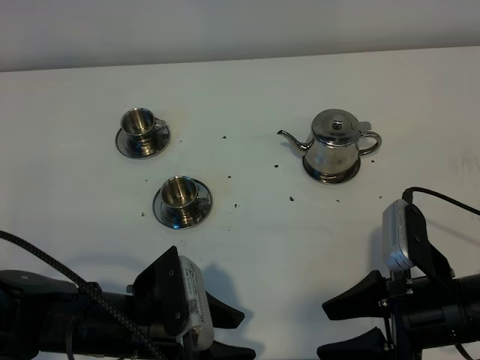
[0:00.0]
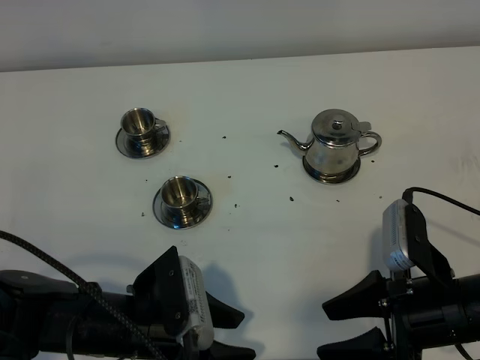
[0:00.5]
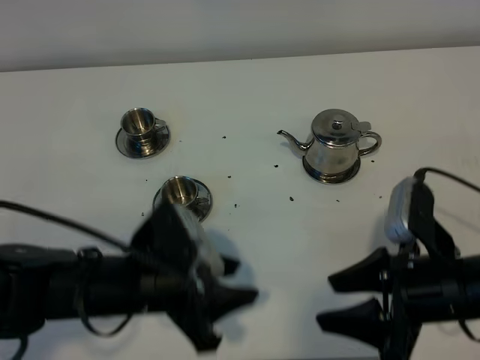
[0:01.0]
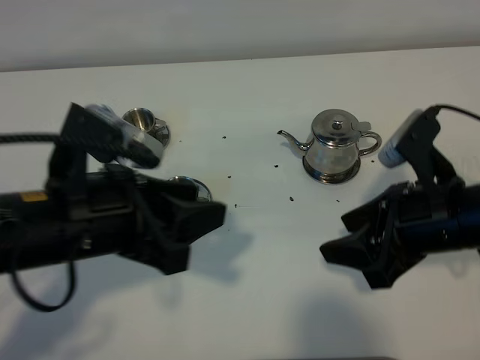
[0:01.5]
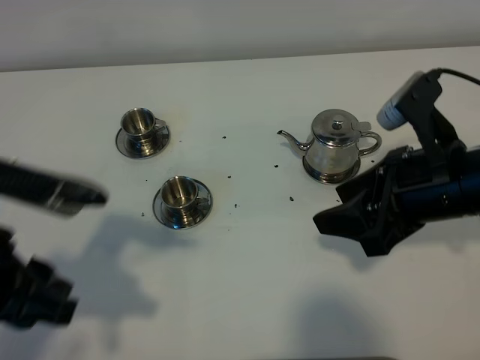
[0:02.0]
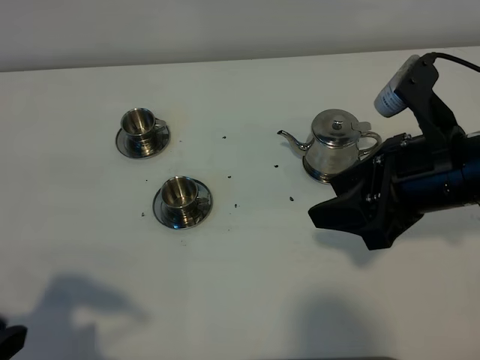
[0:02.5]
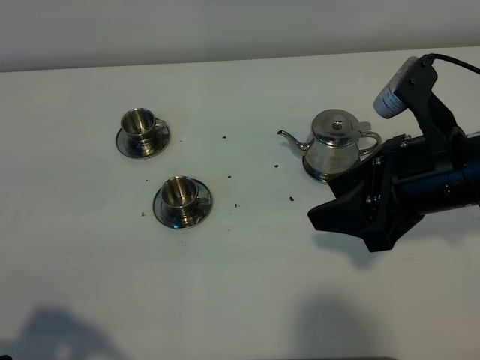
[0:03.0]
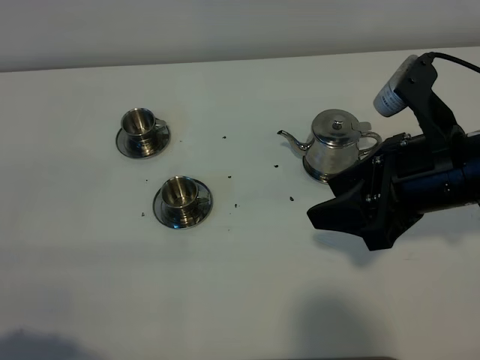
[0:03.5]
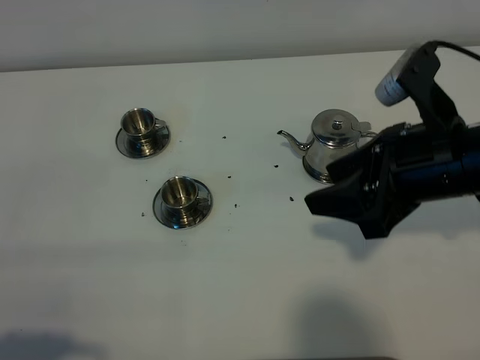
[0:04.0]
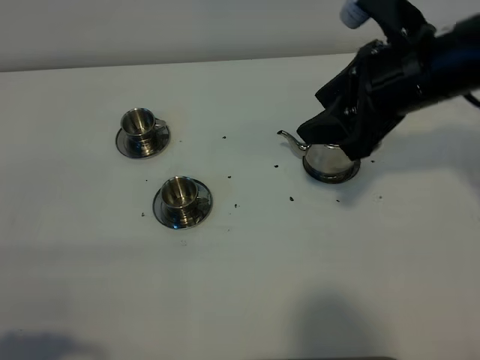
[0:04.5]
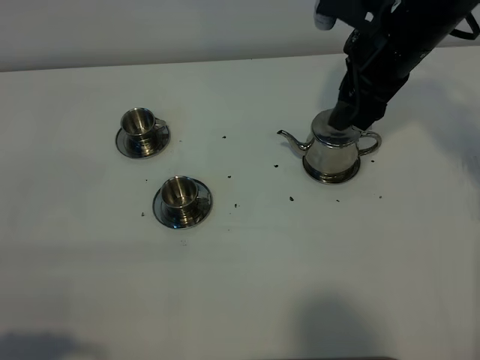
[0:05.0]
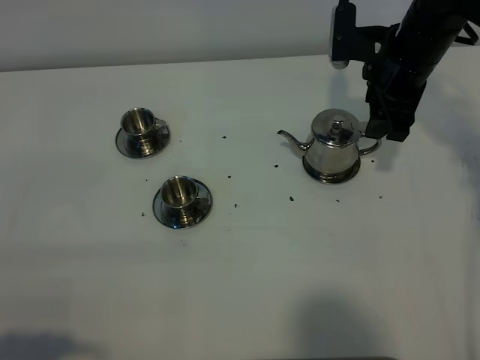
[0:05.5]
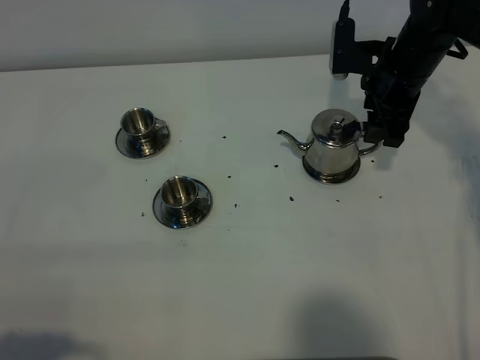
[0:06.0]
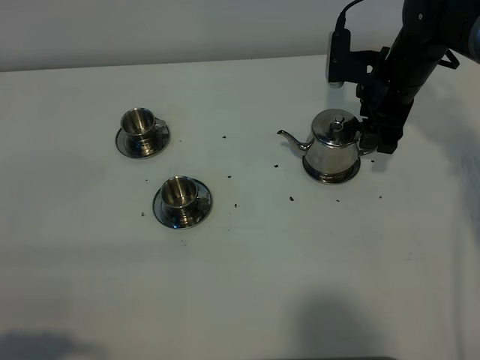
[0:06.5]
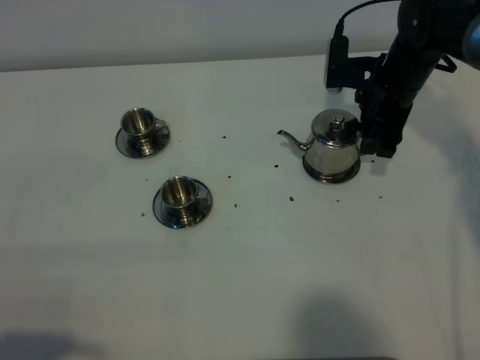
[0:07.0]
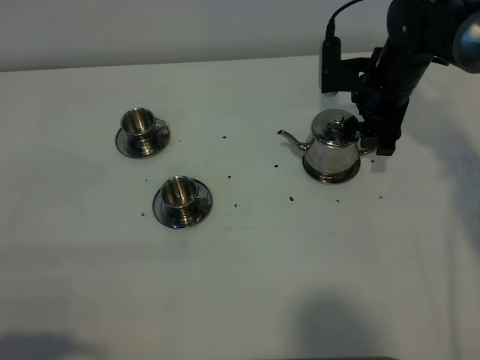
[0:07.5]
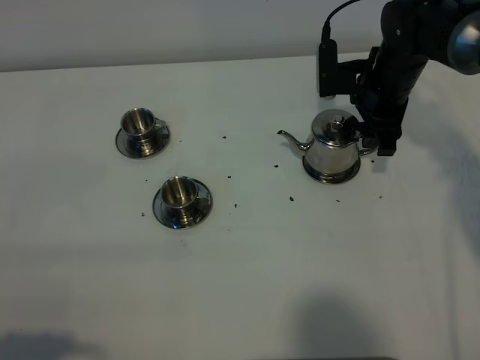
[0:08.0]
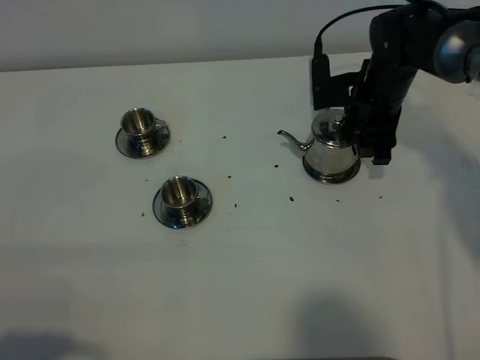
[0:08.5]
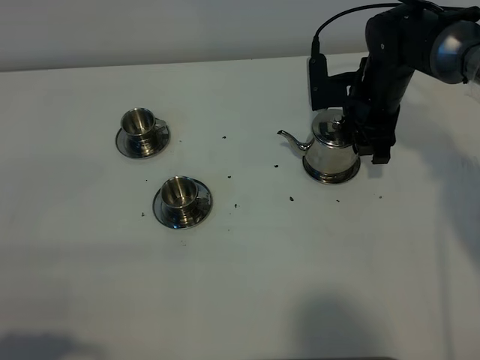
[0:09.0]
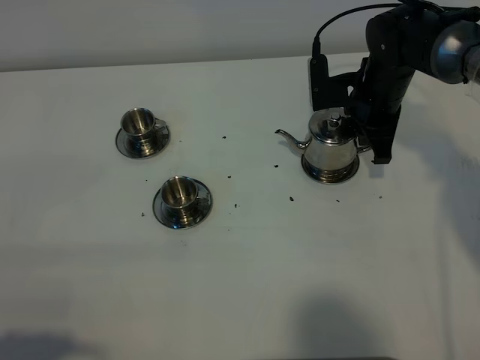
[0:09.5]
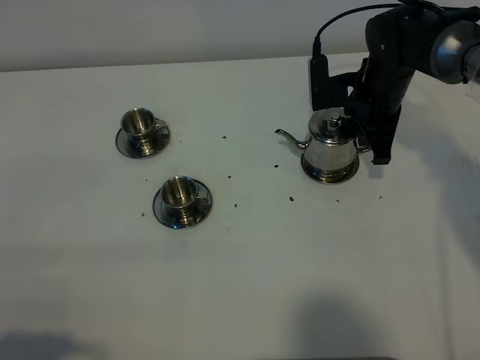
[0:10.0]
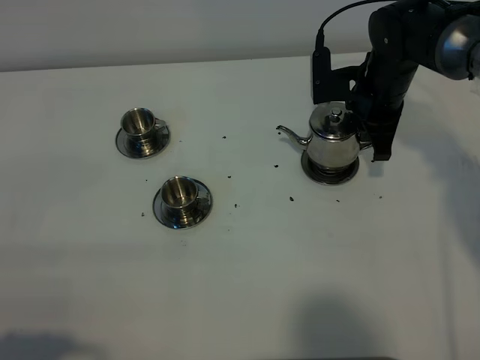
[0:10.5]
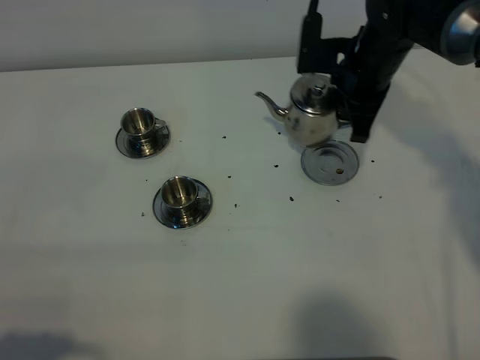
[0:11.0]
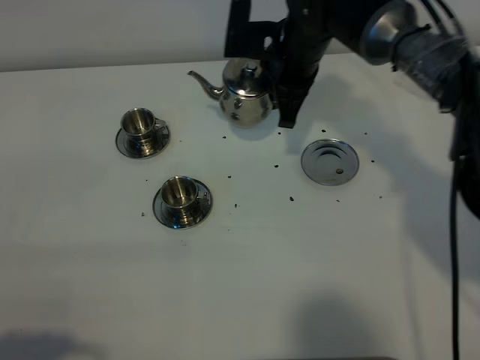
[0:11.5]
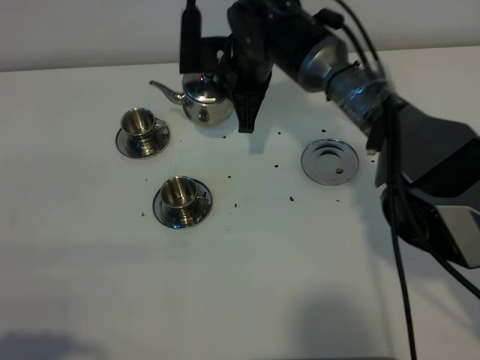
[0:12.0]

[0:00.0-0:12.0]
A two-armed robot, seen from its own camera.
Task of the whole recording: grasp the stainless steel teapot and pour the tea into the two stainless steel teacups one by one, put the stainless steel teapot back in its original place.
Step, 0:00.0 to 0:10.5: Pick up the teapot with the right gripper.
0:00.0 to 0:02.0: The right gripper travels upward and forward by some 15 cm. The left gripper moves upward and to the left, roughly 20 cm.
0:02.0 to 0:04.0: The left gripper is displaced backward and to the left by roughly 15 cm.
0:04.0 to 0:06.0: The right gripper moves forward, approximately 20 cm.
0:06.0 to 0:08.0: The grippers move only a little.
0:08.0 to 0:10.0: The right gripper closes.
0:10.0 to 0:12.0: The right gripper heads to the left, covering some 15 cm.

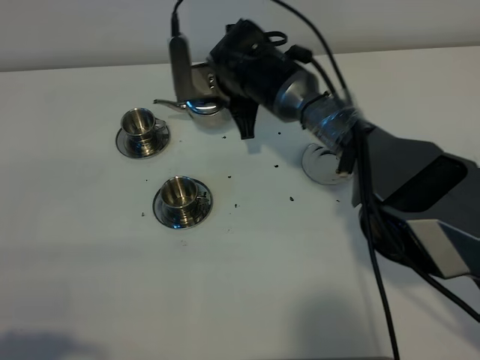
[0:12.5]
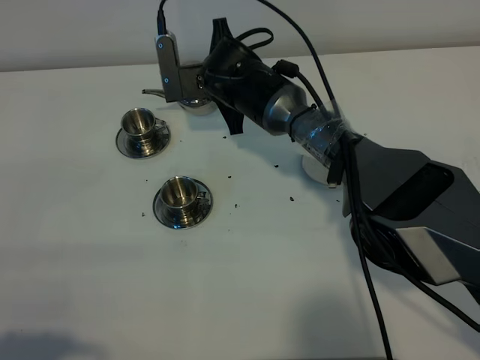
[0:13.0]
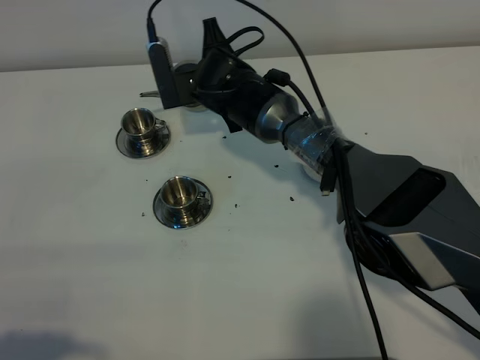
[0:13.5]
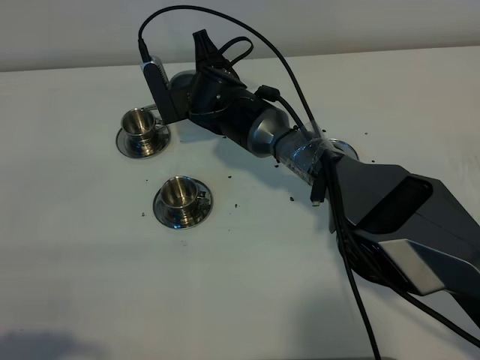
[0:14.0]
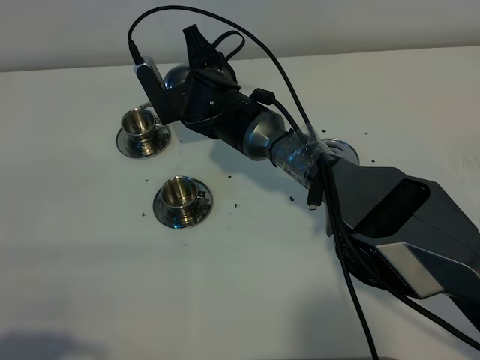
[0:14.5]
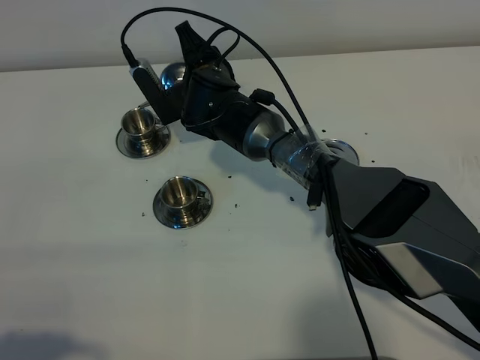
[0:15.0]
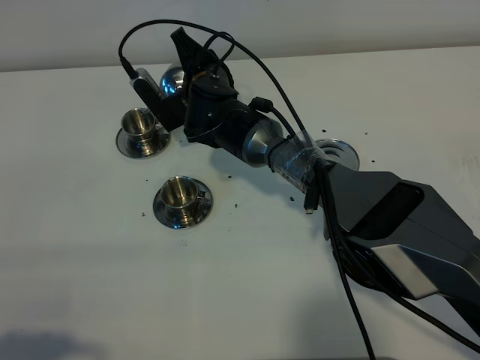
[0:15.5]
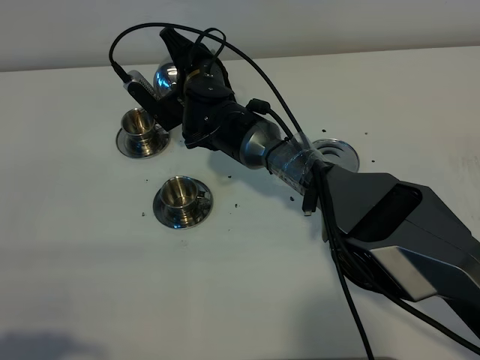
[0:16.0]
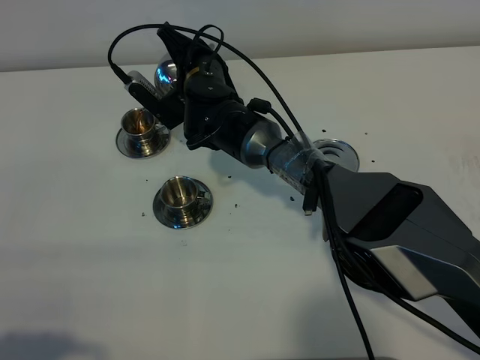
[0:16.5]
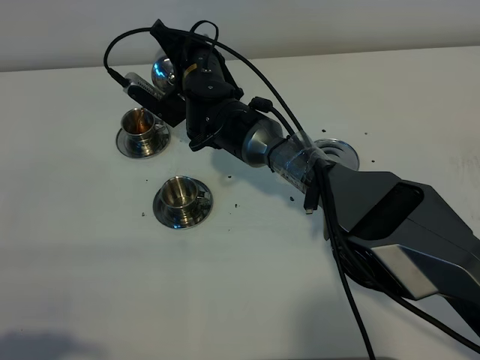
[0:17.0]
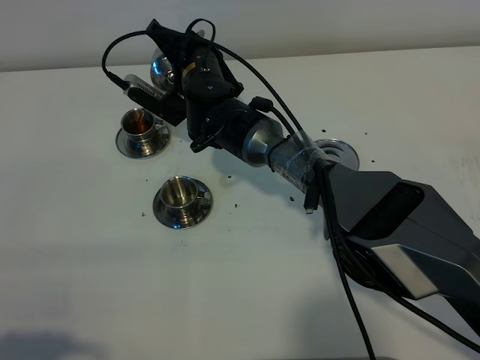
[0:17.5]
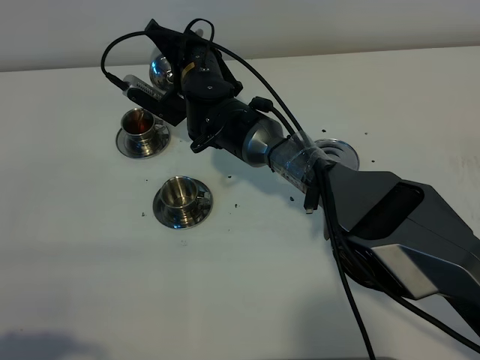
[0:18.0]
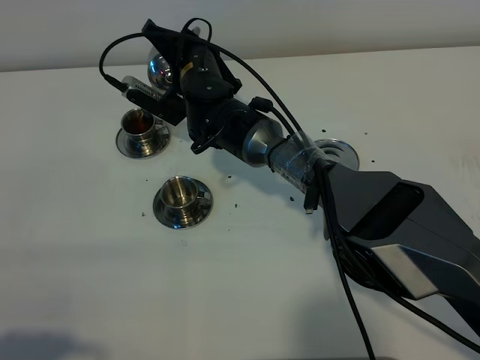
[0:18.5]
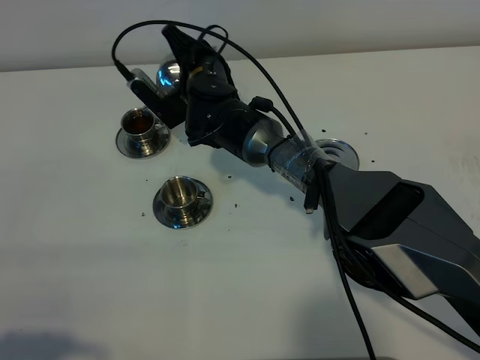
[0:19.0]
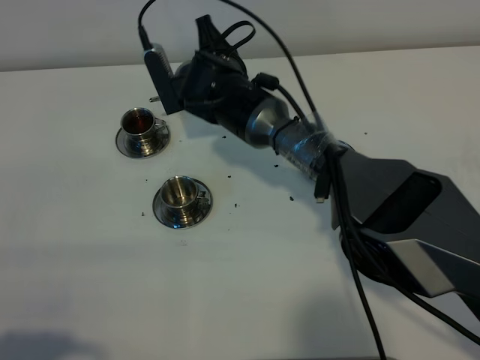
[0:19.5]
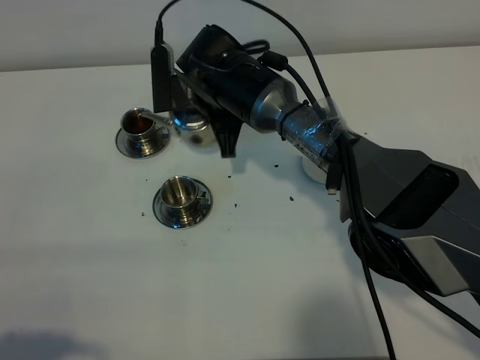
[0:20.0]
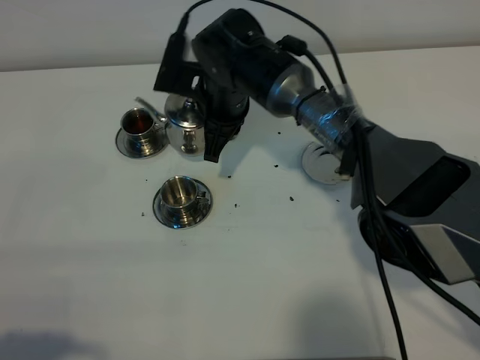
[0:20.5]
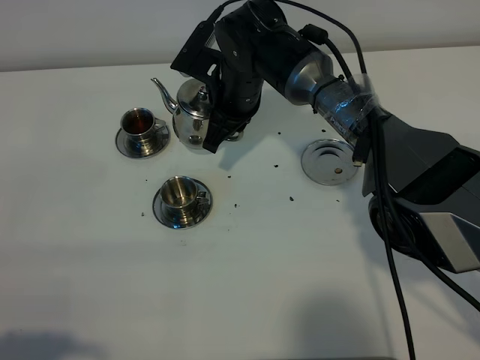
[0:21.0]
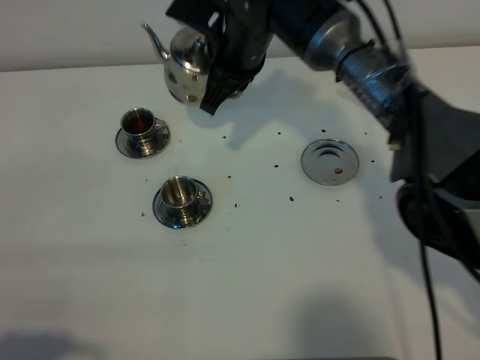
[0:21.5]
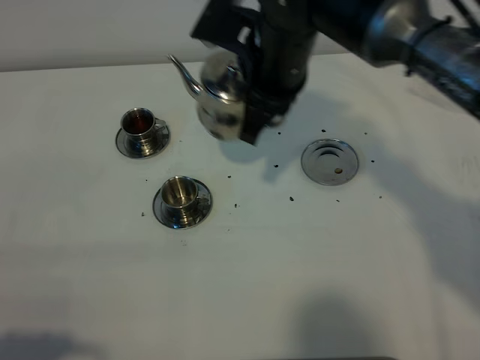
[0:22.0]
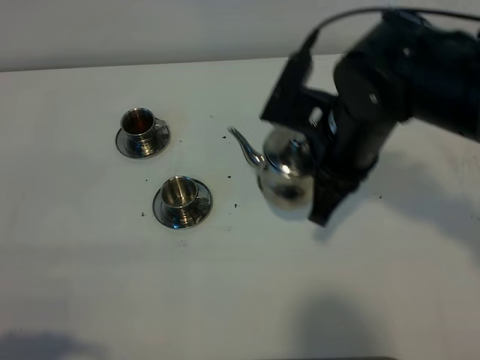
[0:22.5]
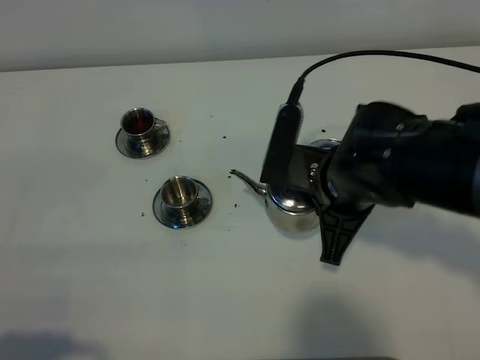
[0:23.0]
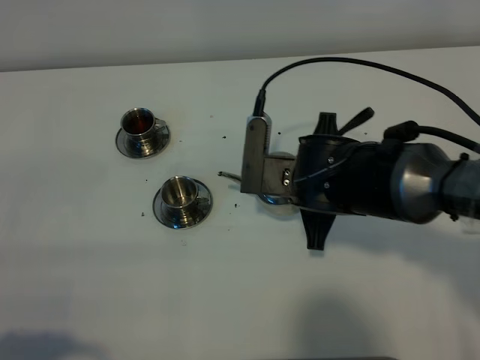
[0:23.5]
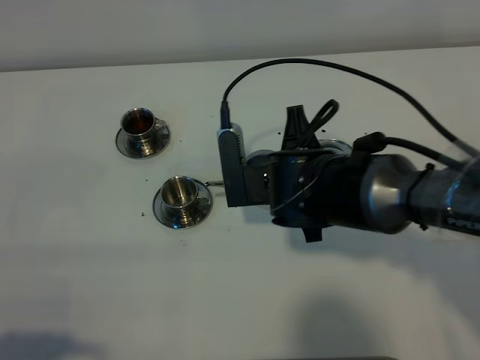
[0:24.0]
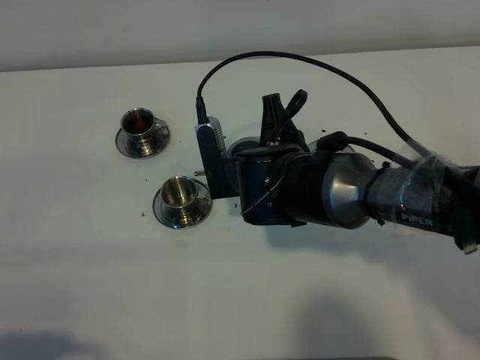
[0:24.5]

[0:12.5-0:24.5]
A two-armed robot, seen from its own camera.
Task of the whole recording: grasp the stainless steel teapot and pour the tea into the two stainless steel teacups one by one, put the stainless steel teapot back in its original place.
0:16.5 to 0:18.5: The grippers make only small movements.
0:18.5 to 0:20.5: The right gripper ends up approximately 5 cm from where it was.
0:20.5 to 0:22.5: The right gripper goes roughly 20 cm backward, to the right and upward.
0:22.5 to 0:24.5: The right gripper heads downward and to the left, covering some 10 cm.

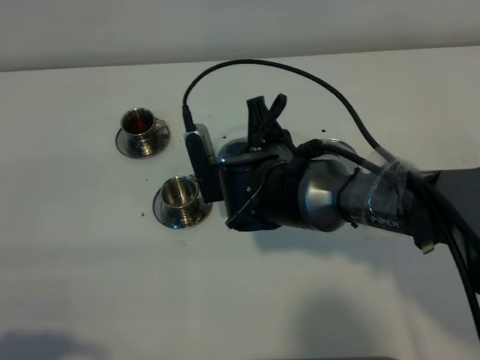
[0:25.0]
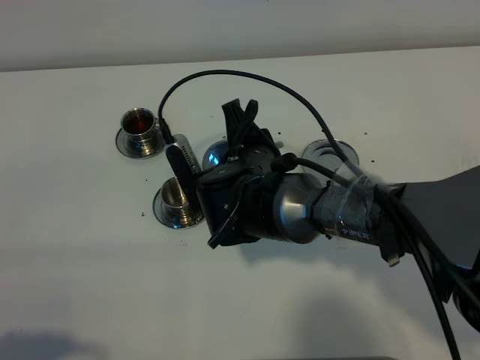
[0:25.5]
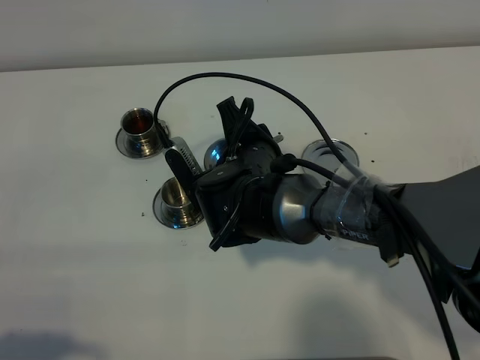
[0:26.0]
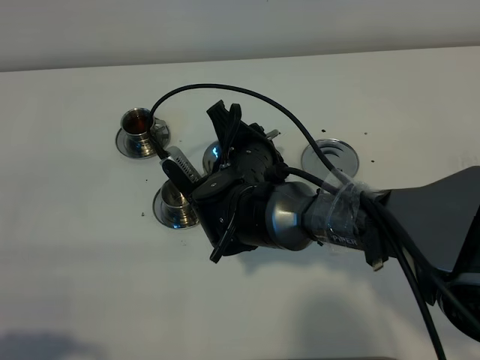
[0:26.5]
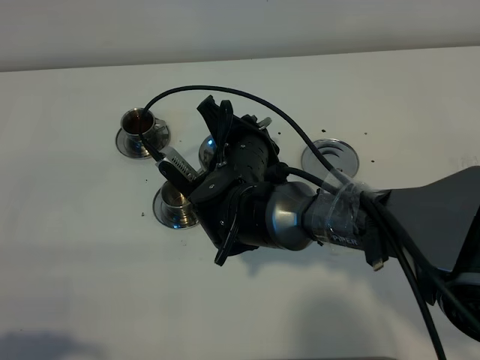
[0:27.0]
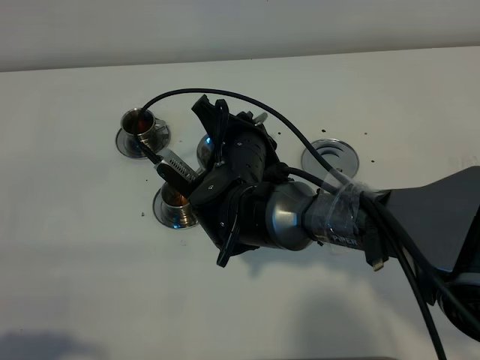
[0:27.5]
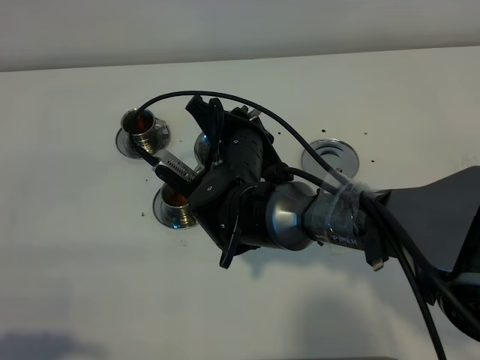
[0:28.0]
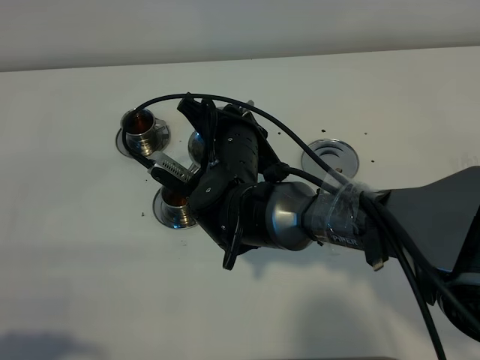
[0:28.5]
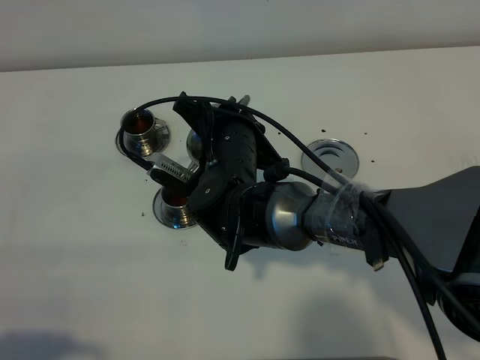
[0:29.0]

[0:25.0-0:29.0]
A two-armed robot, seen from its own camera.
Task of the whole recording: grasp the stainless steel teapot and pour the tea into the two stainless steel teacups one by one, put the stainless steel teapot back in its original place.
0:27.0 to 0:29.0: The grippers stay close to where they were, moving slightly.
